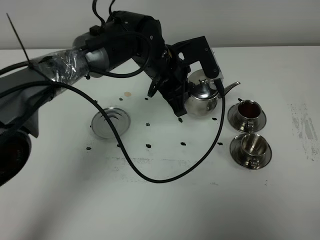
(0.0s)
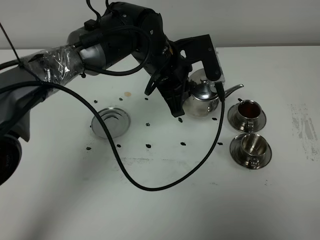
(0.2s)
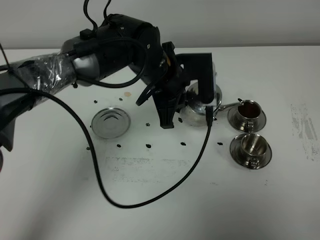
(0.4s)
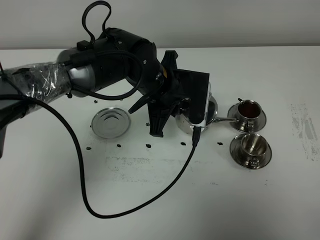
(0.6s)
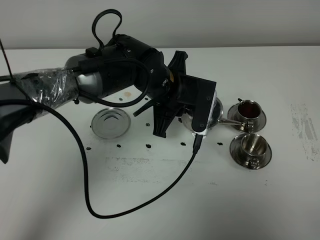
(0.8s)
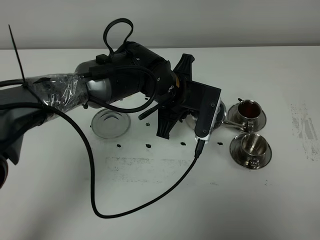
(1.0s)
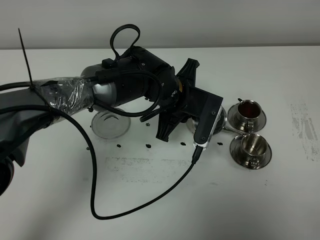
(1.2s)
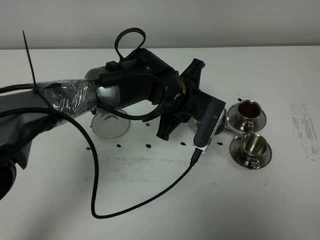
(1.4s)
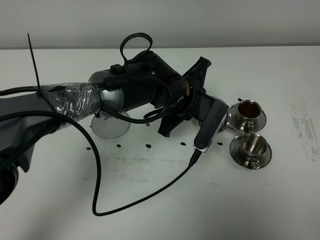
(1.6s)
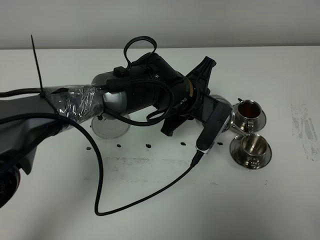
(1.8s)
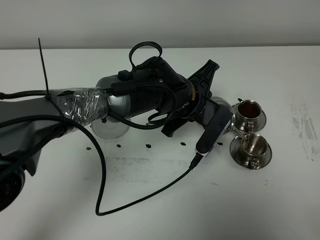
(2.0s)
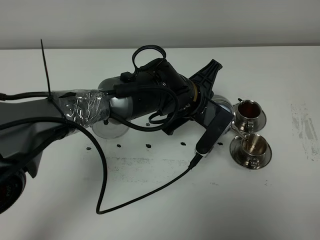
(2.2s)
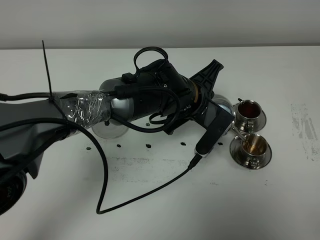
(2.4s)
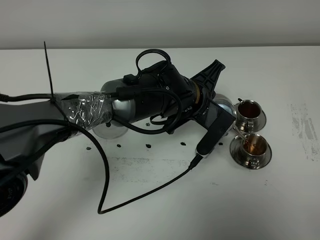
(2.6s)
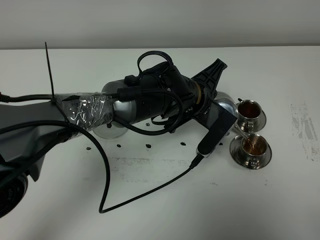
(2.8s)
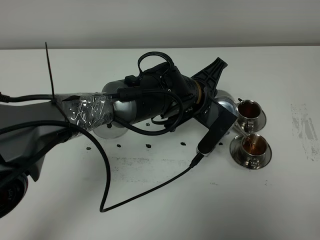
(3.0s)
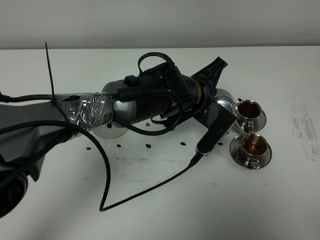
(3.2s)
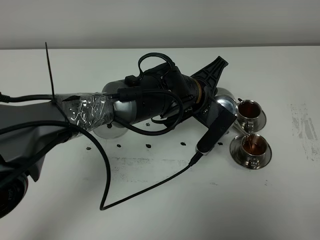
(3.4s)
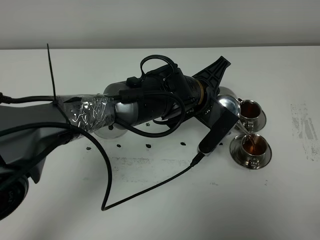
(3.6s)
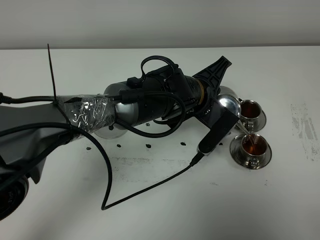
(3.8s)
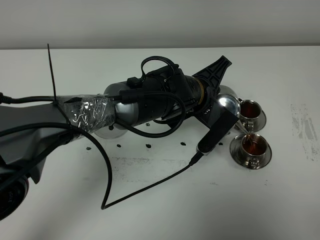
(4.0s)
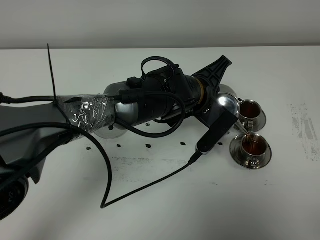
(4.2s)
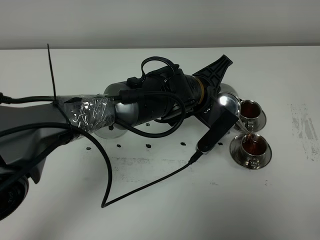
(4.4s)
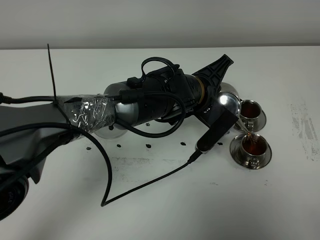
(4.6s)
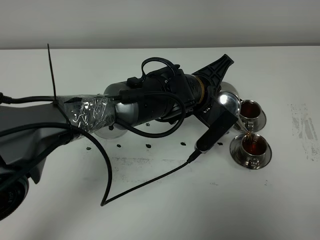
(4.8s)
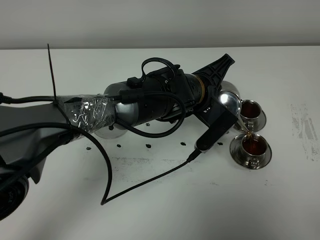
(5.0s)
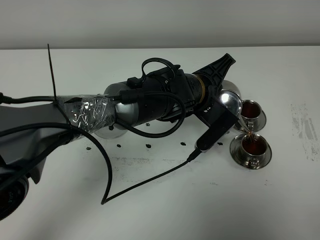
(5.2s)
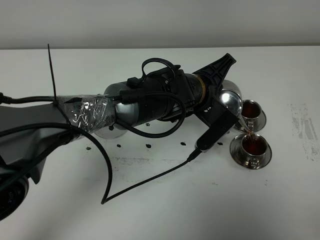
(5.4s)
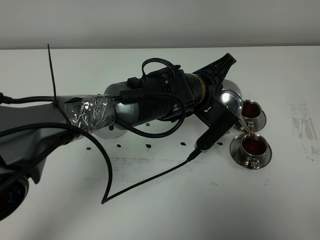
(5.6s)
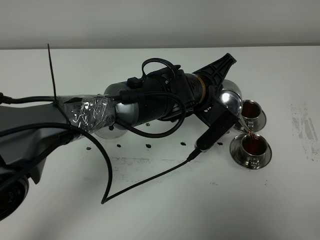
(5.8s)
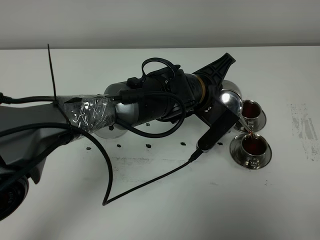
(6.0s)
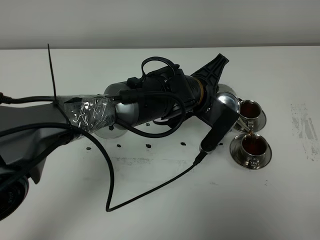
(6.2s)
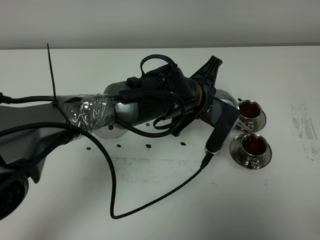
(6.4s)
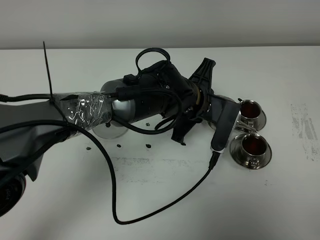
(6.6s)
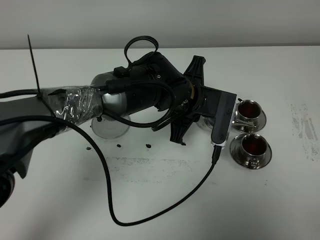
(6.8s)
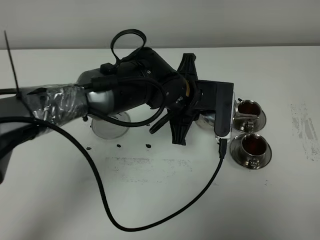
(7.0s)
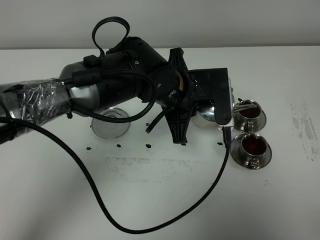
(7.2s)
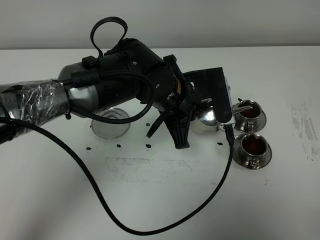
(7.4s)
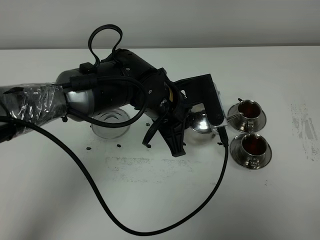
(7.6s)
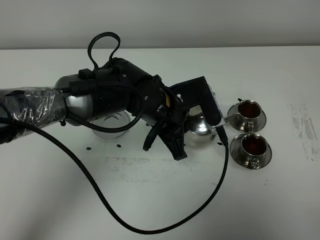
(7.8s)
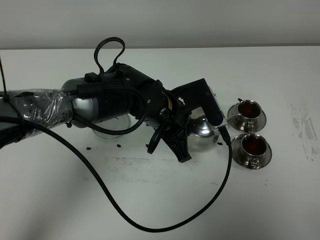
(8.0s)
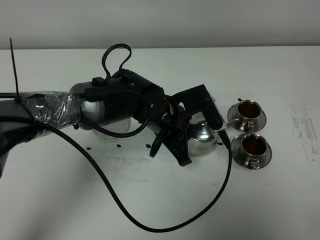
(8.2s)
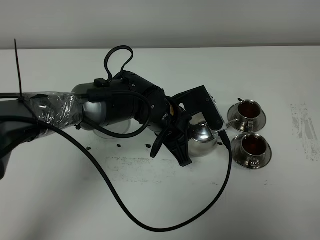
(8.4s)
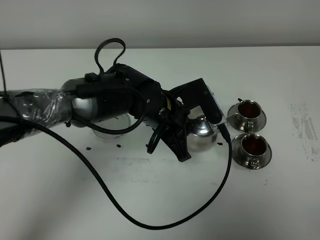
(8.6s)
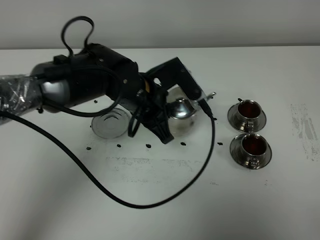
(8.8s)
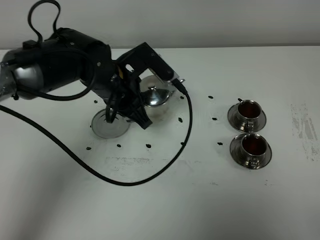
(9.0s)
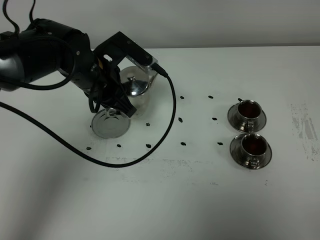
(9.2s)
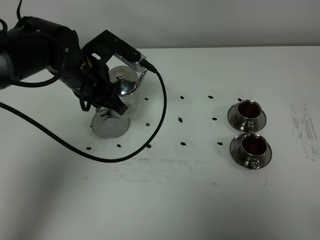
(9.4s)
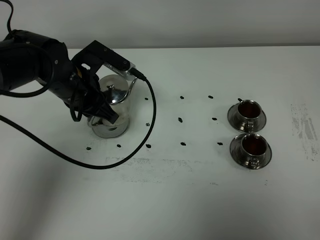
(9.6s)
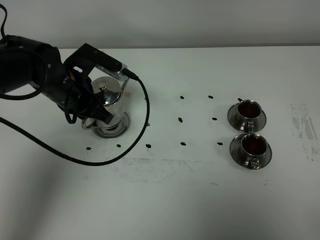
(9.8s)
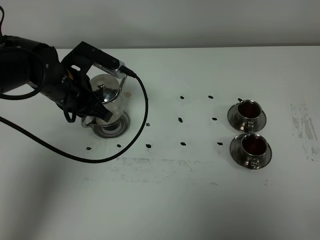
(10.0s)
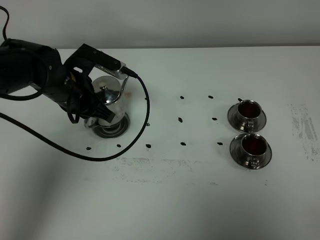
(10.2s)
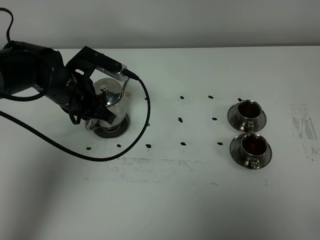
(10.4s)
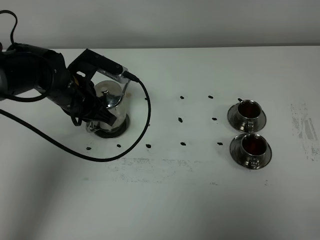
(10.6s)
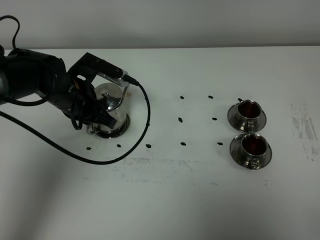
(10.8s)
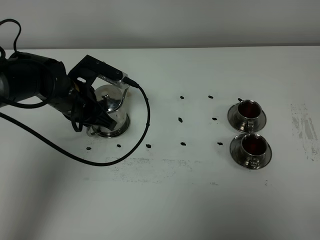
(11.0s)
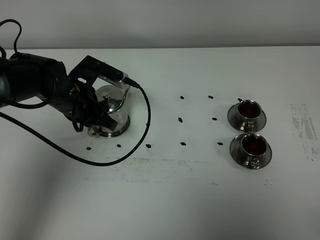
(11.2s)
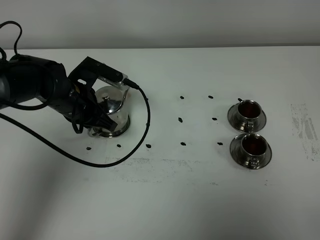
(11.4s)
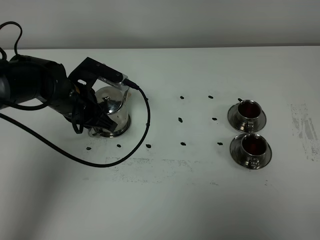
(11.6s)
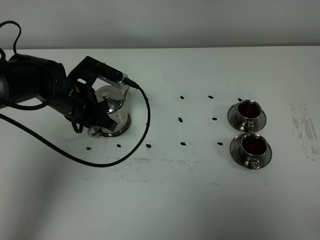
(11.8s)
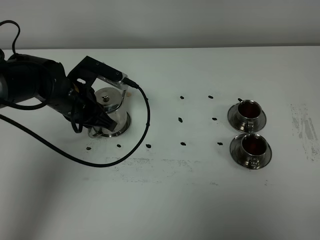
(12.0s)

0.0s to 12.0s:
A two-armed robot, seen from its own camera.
Task of the whole recording: grasp the stainless steel teapot and pour the tea into the two stainless steel teacups one by one, put the stainless steel teapot back in its original place.
Step, 0.0s to 6.8s: Pour tea into the teacup with the left gripper.
0.0s to 1.6s: The left gripper goes approximately 5 cm backward.
1.6s to 4.4s: The grippers stay close to where they were, moving slightly.
4.4s to 6.0s: Both grippers stay about where they are.
6.0s to 7.6s: The left gripper is displaced to the left by roughly 5 cm.
7.6s to 9.0s: The left gripper moves to the left, some 10 cm.
9.0s to 10.4s: The left gripper moves to the left, approximately 10 cm.
10.4s to 12.0s: The grippers stay close to where they were, moving slightly.

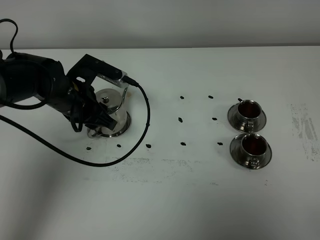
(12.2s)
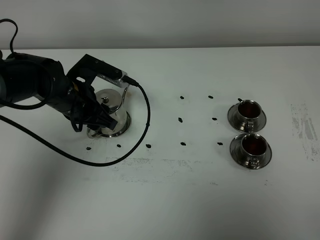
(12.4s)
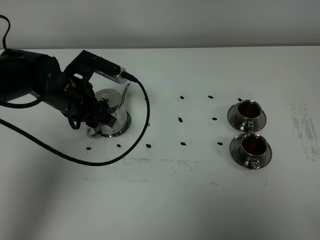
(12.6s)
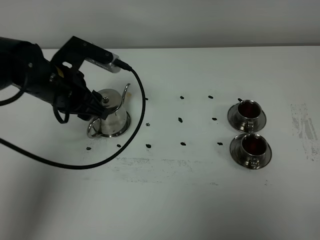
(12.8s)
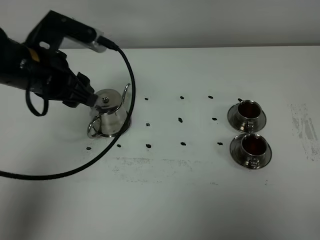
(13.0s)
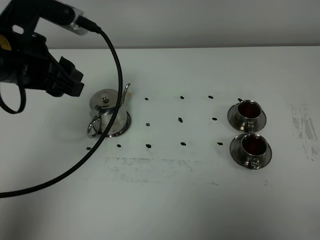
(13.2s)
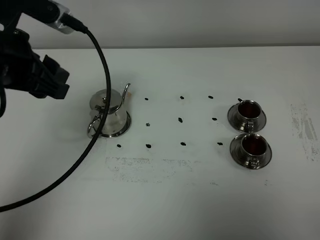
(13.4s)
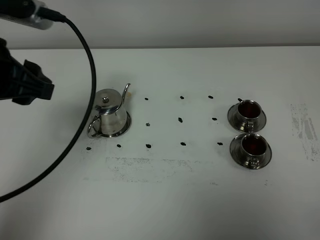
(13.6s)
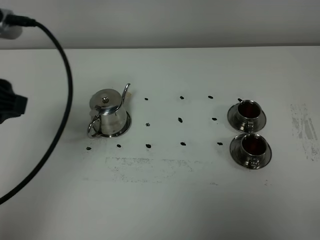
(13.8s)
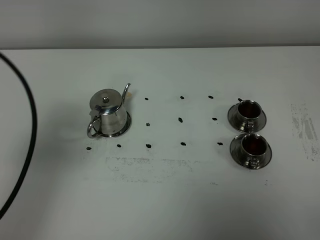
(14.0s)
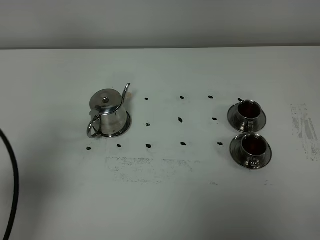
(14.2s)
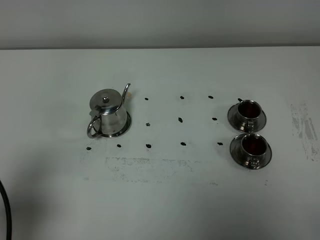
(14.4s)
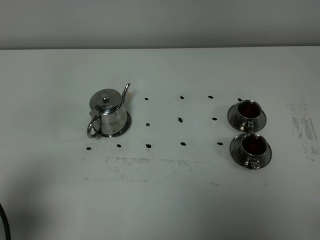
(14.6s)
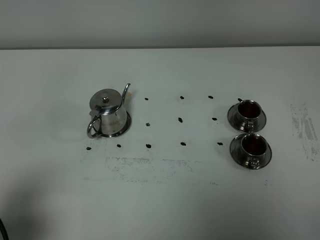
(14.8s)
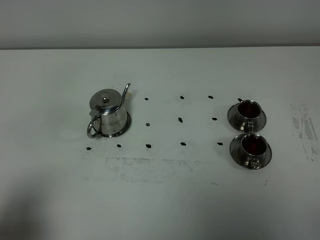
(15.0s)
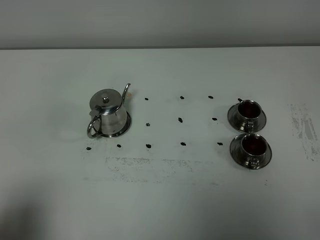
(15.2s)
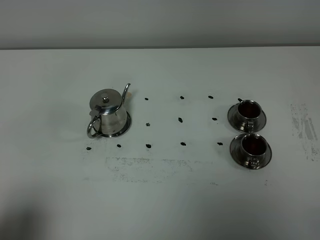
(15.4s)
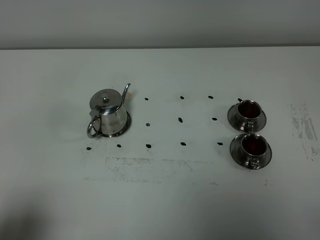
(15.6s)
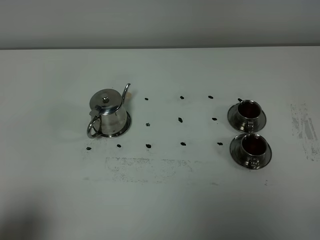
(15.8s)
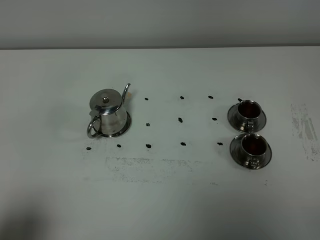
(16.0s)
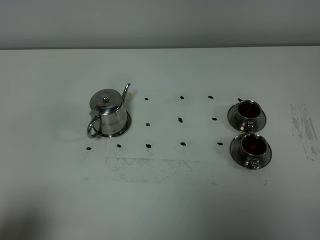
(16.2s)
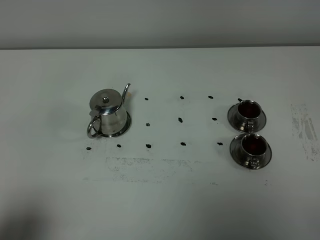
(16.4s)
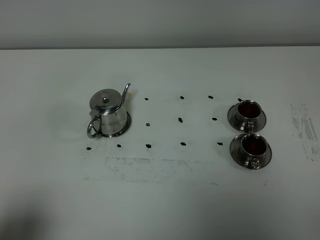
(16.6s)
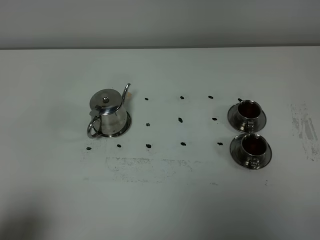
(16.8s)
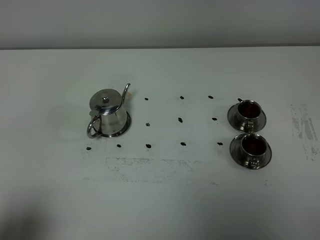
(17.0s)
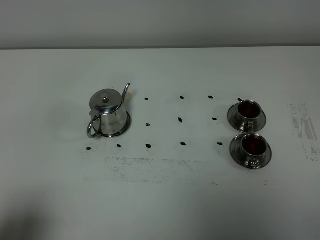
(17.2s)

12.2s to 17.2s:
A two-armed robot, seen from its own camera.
Task of the whole recording: grasp the stainless steel teapot and pour the tea into the two stainless steel teacups one by one, put the stainless steel teapot back in its original place.
12.2s to 13.8s: The left gripper moves upward and backward, some 25 cm.
13.8s to 15.6s: The left gripper moves backward and downward, some 25 cm.

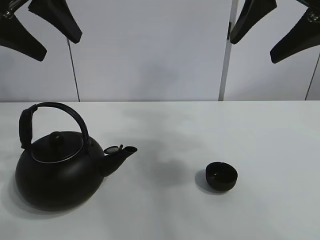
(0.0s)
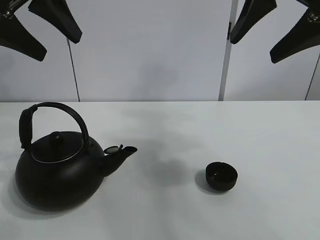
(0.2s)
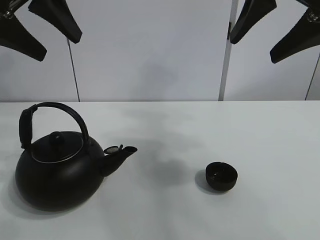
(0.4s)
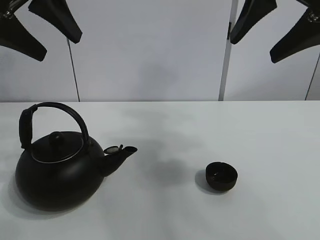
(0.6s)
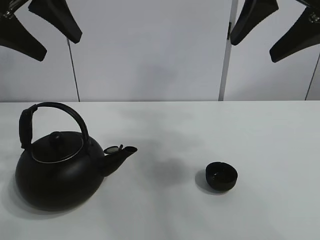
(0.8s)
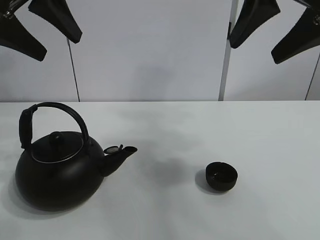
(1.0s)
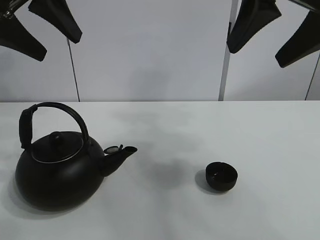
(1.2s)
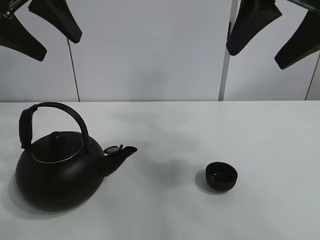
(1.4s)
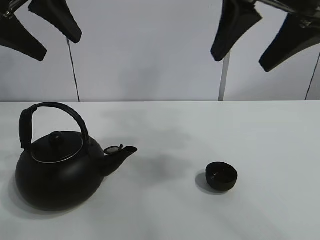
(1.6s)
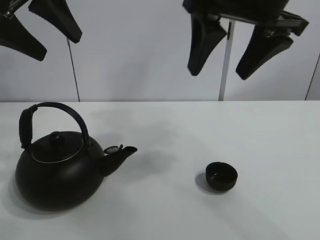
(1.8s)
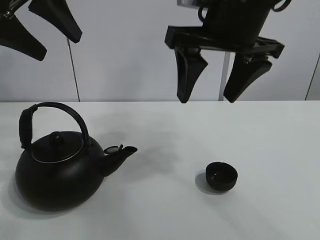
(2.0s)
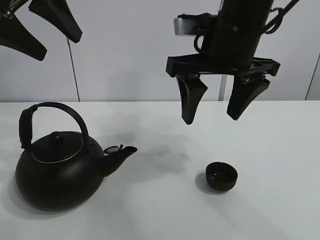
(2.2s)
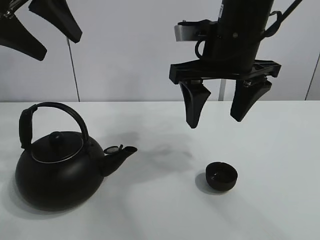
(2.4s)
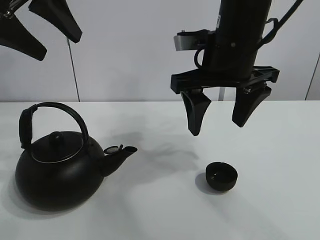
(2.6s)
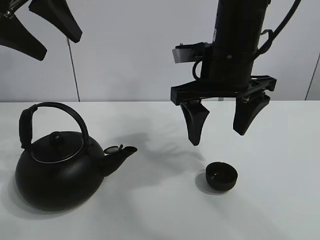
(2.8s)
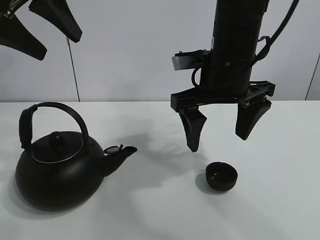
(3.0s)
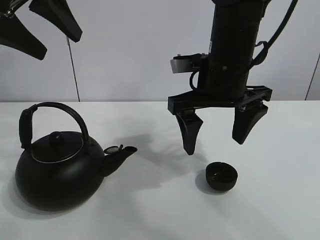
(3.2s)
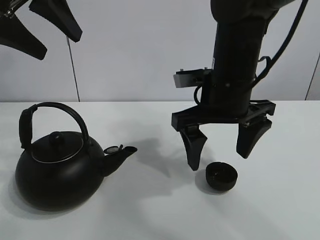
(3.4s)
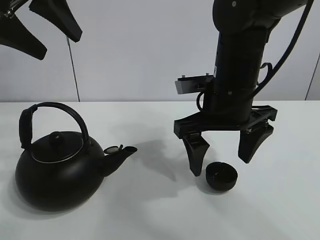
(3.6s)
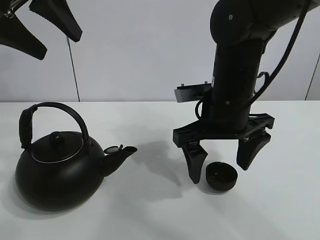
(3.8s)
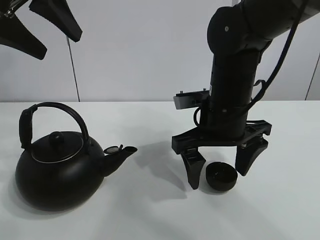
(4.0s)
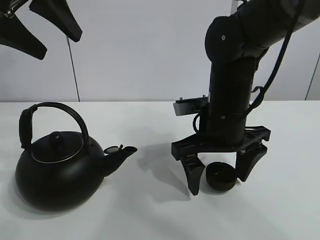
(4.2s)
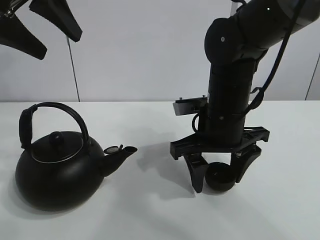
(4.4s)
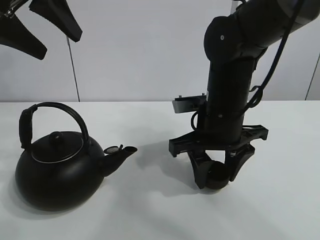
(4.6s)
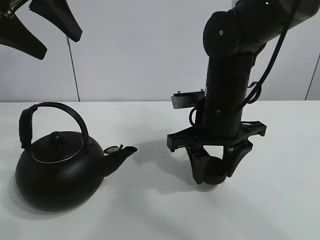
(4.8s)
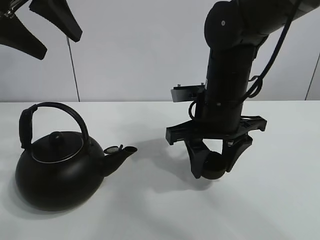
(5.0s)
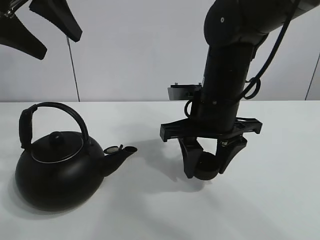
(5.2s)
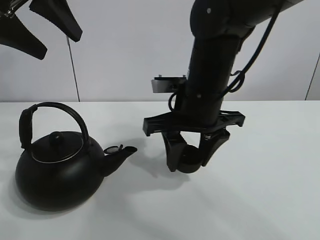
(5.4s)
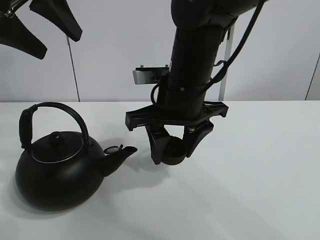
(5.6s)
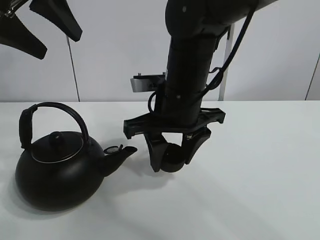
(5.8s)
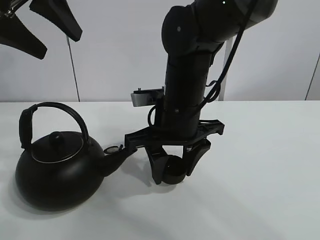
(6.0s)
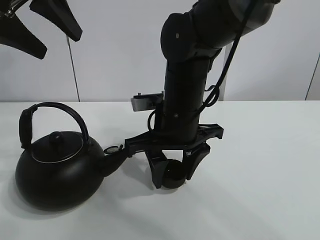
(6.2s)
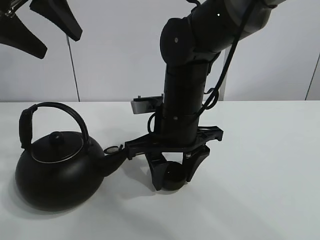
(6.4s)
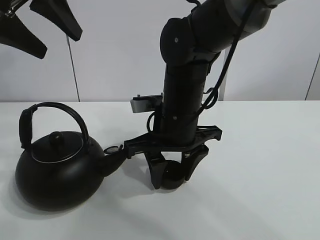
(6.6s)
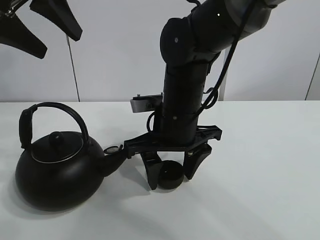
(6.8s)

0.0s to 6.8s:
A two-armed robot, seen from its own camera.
Task of the whole recording: pour tea into the teacup.
Step, 0.0s to 4.4s: Pick up the teacup with the right gripper.
1.4s to 2.8s: The right gripper is displaced downward, to the left and forward by roughly 15 cm.
2.8s to 4.0s: The right gripper travels downward by roughly 5 cm.
4.0s to 5.4s: The right gripper closes.
5.4s to 6.8s: There are only small adjustments of the grippers.
